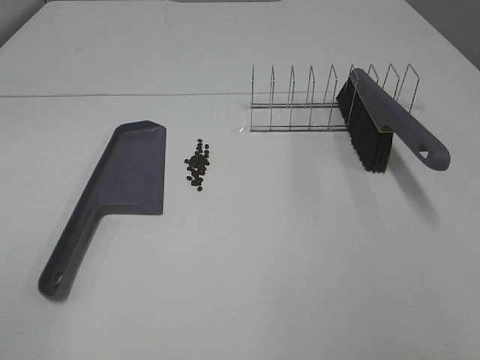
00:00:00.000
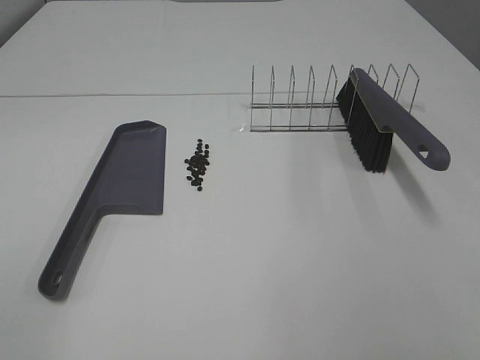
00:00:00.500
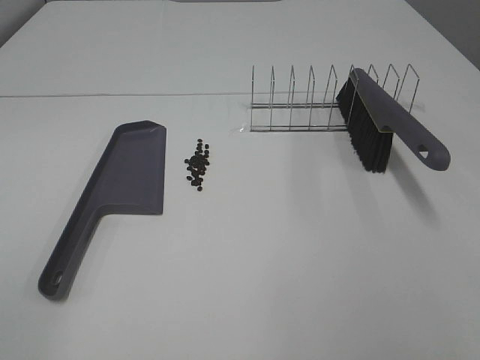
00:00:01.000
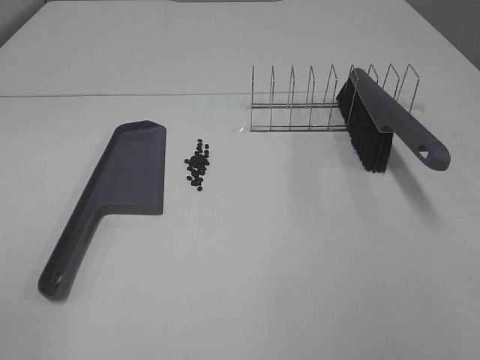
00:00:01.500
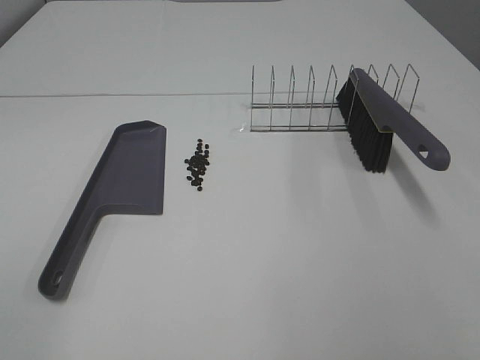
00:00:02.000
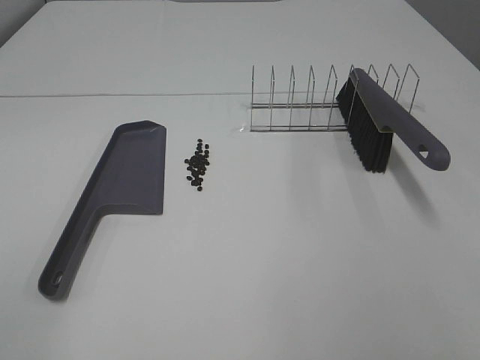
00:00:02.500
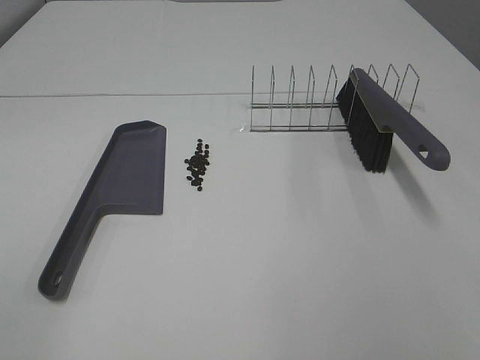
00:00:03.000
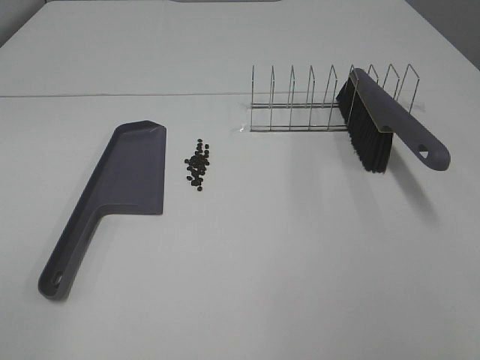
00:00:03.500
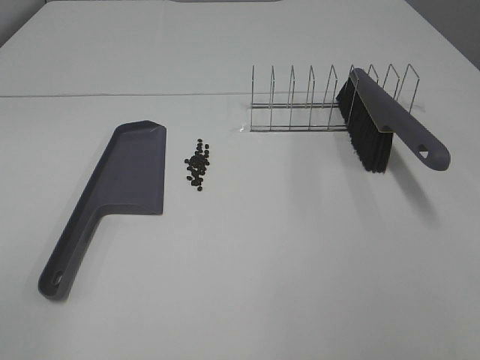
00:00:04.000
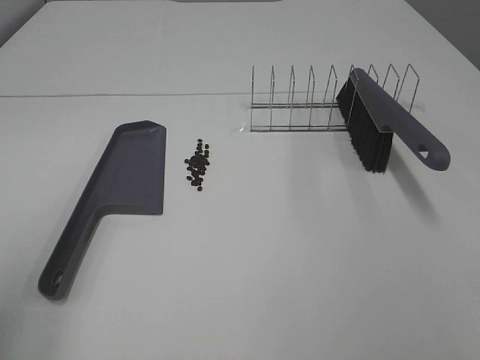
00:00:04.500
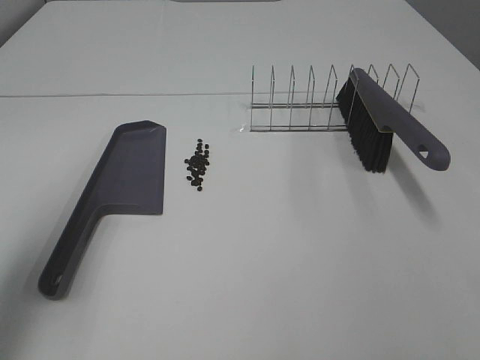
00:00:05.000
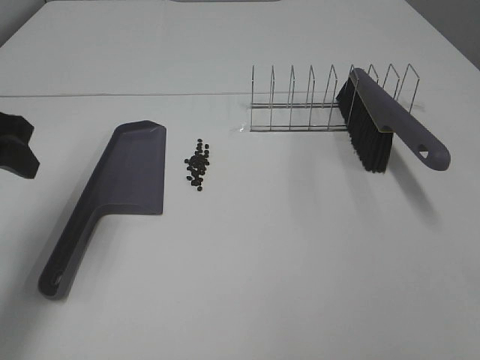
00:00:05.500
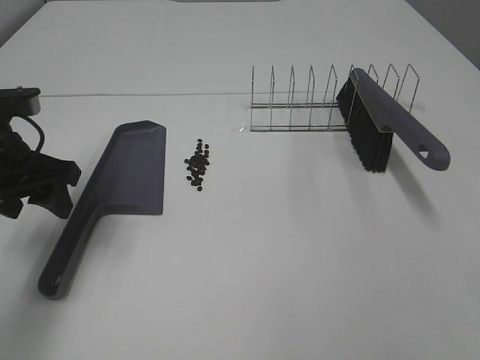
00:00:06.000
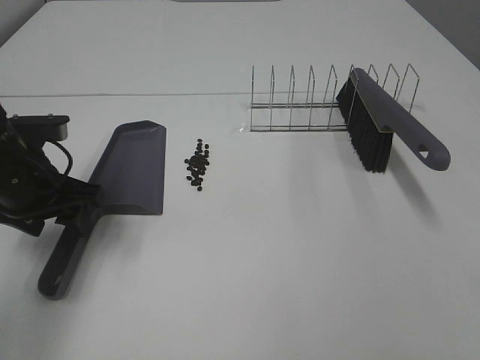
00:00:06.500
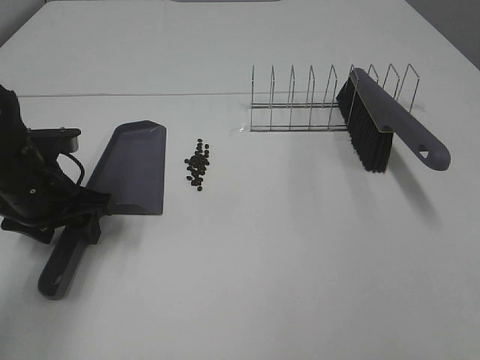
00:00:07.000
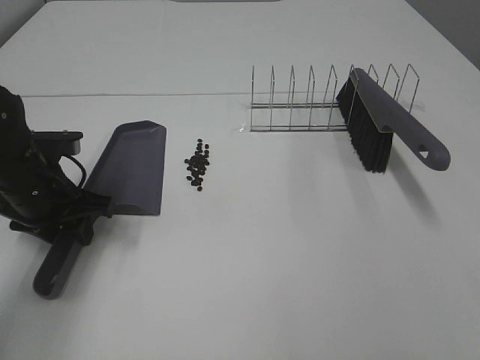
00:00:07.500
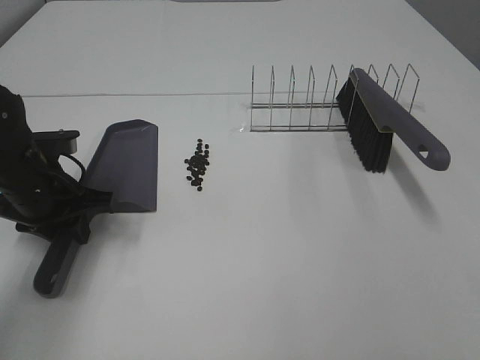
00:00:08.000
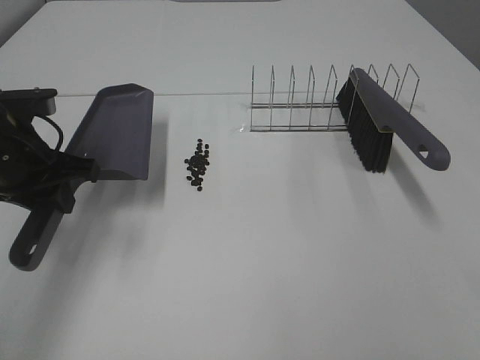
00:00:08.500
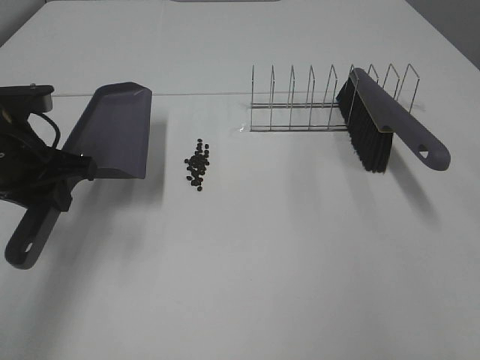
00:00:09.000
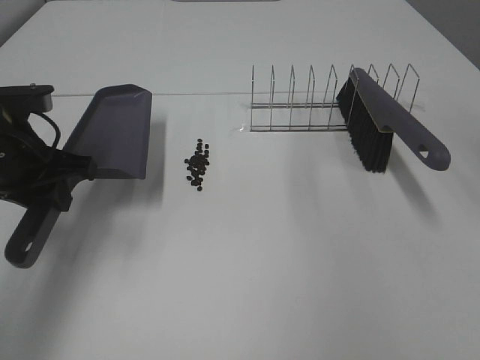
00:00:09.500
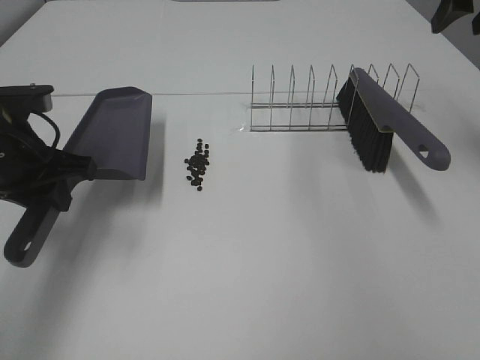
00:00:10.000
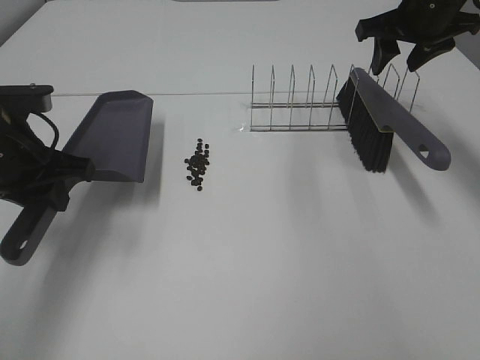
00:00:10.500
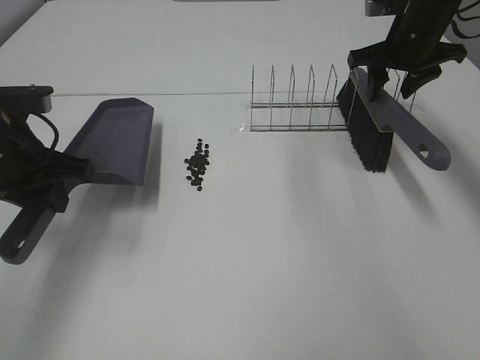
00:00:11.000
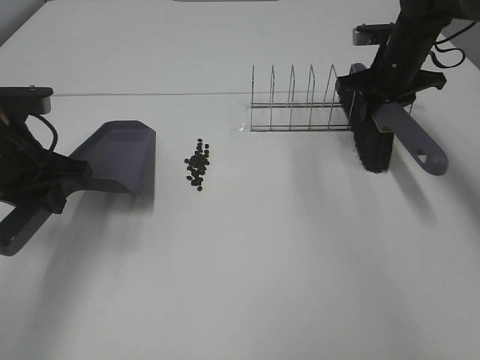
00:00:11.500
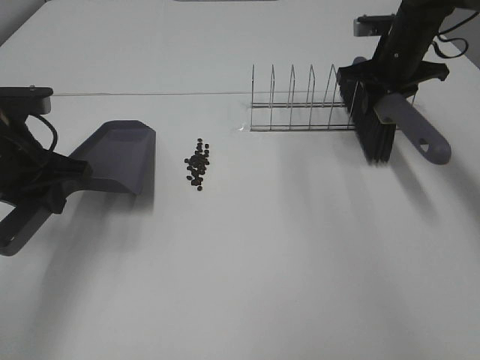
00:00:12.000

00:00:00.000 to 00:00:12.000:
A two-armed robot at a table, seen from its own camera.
Task of the whole recording: Sweep Coffee Bean.
Step, 00:00:00.000 to 00:00:07.500: Left hand: grab the dustpan.
Step, 00:00:09.000 to 00:00:11.500: Right hand:grab the broom.
00:00:00.000 to 00:00:04.000: Neither gripper changes place.
00:00:04.000 to 00:00:06.000: The left gripper travels forward by approximately 30 cm.
00:00:06.000 to 00:00:08.000: The left gripper goes about 5 cm downward, and closes.
00:00:08.000 to 00:00:10.000: The right gripper is displaced forward by roughly 40 cm, while the left gripper shifts about 5 cm upward.
00:00:10.000 to 00:00:12.000: The right gripper heads downward, forward and to the left, covering about 15 cm, and closes up.

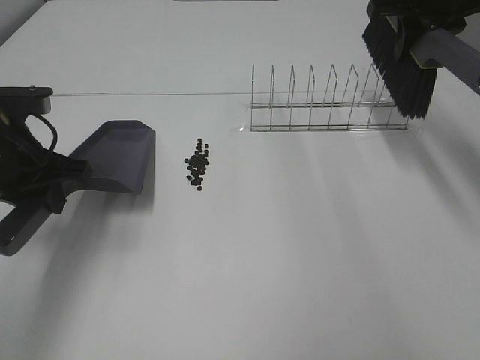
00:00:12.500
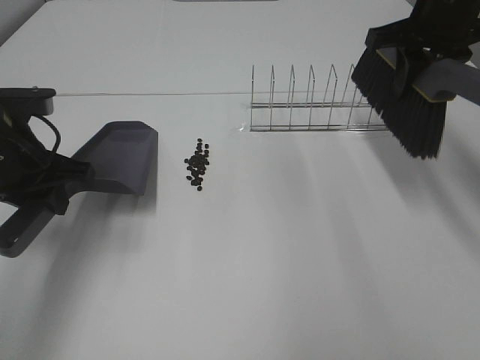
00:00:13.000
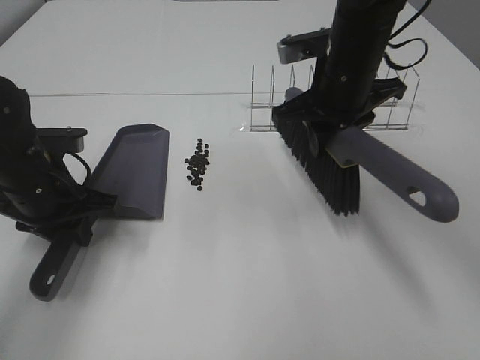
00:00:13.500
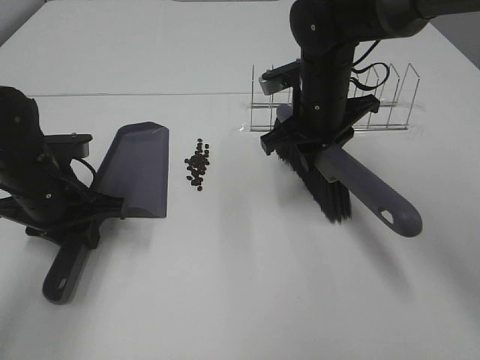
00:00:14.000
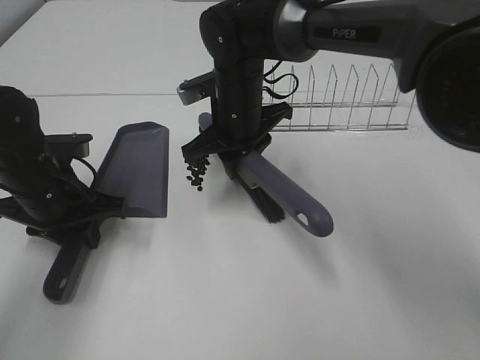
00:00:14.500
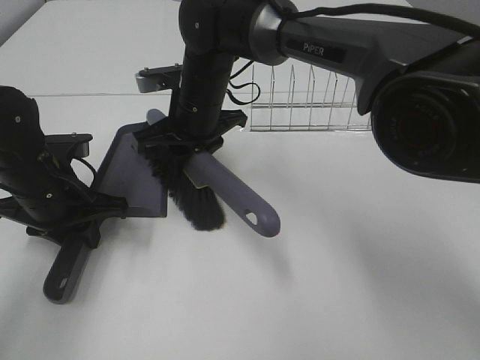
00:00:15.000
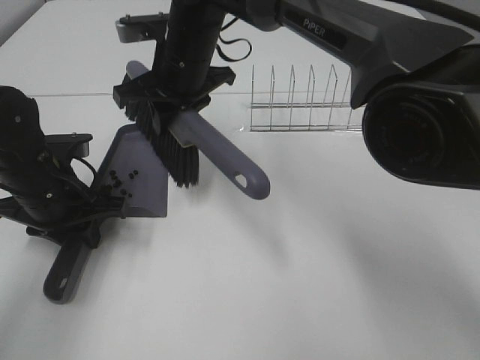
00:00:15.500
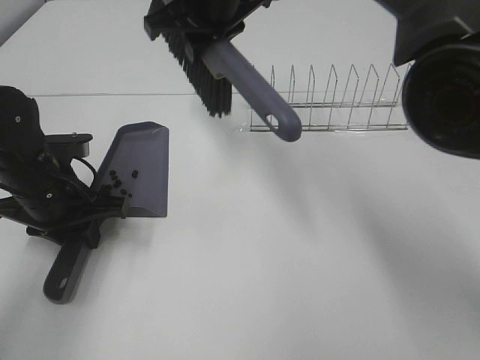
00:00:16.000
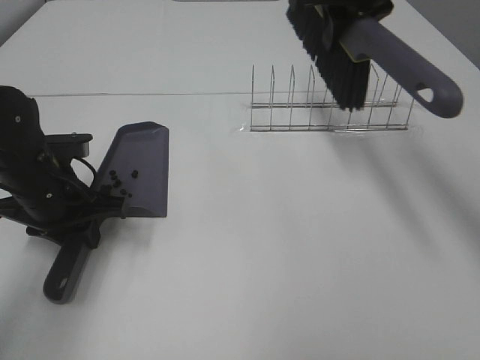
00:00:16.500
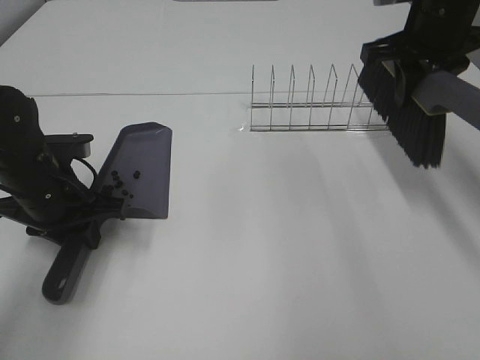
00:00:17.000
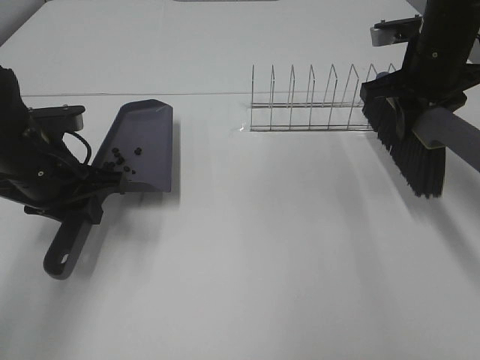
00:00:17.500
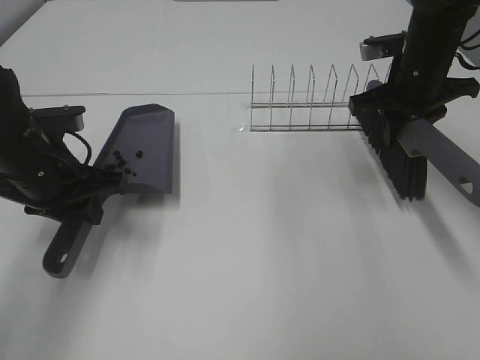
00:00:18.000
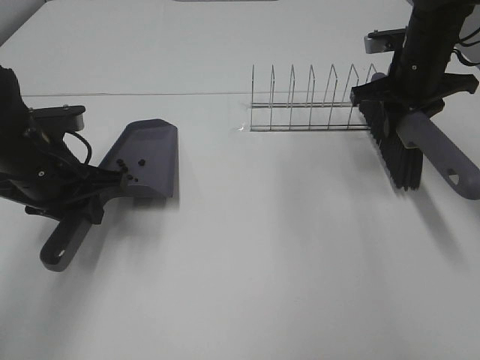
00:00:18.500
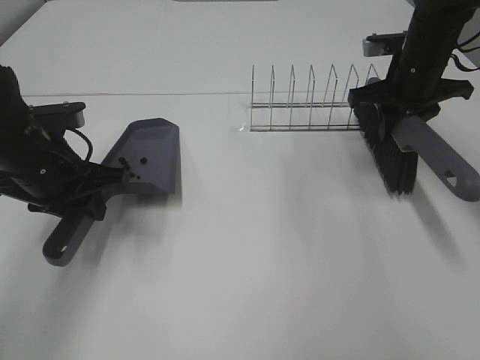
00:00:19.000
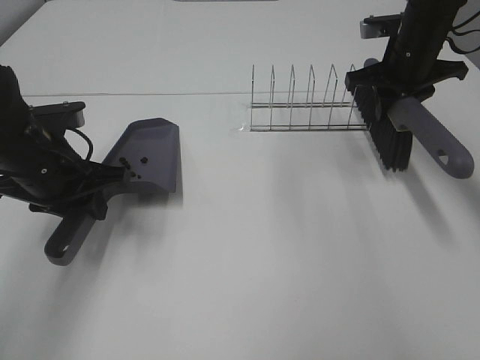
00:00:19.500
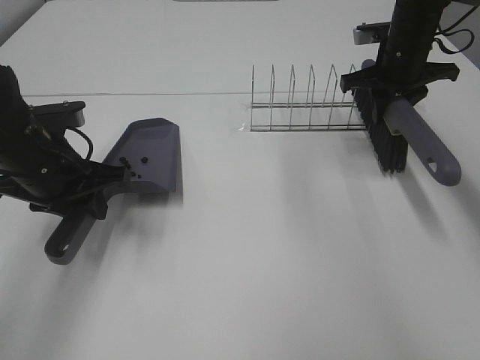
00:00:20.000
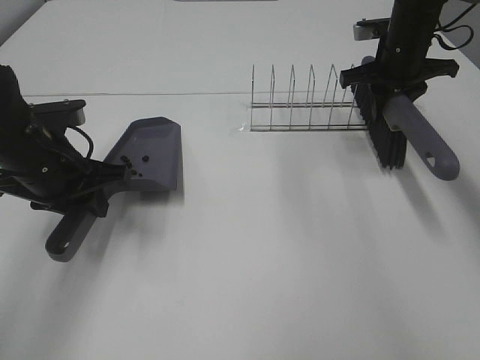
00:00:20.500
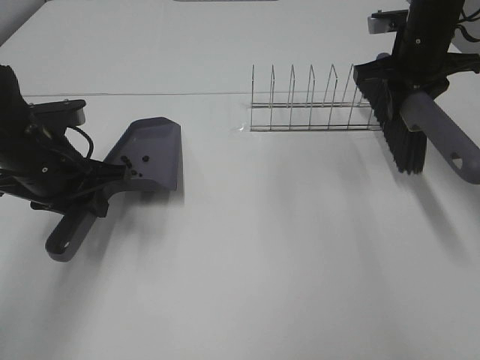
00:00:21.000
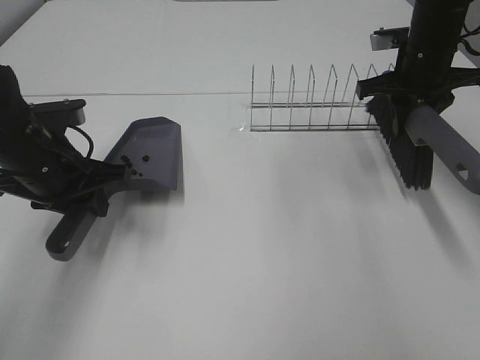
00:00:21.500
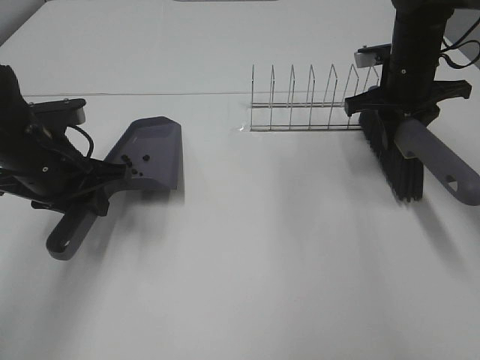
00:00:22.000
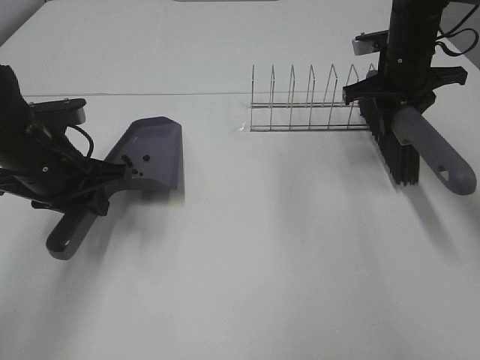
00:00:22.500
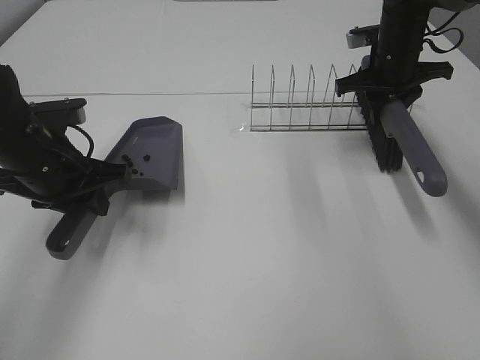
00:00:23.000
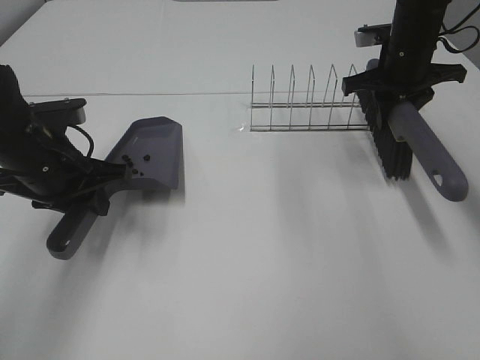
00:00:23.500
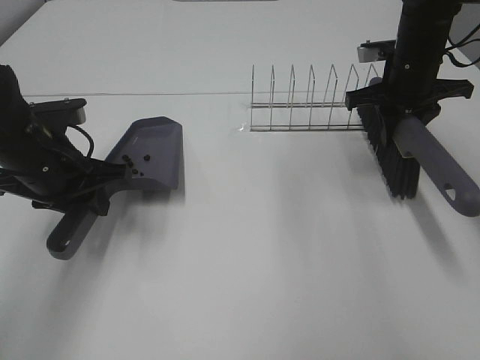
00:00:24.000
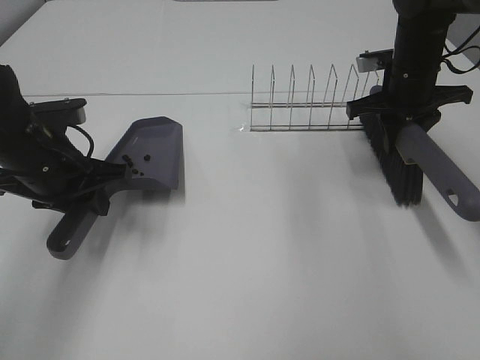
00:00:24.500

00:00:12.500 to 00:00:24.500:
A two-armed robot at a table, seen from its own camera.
Task of the whole recording: Sweep Coffee Bean.
Step, 00:00:12.500 to 00:00:15.500: Right hand:sweep the coffee beans into the dustpan.
00:00:12.500 to 00:00:14.500: The left gripper moves downward, about 5 cm; the right gripper moves to the left and downward, roughly 30 cm.
00:00:14.500 to 00:00:16.500: The right gripper moves upward and to the right, some 25 cm.
00:00:16.500 to 00:00:18.500: The right gripper moves downward and to the right, about 15 cm.
00:00:18.500 to 00:00:24.500: The grippers stay close to where they were, moving slightly.

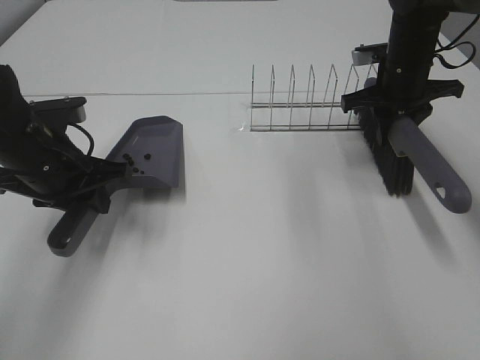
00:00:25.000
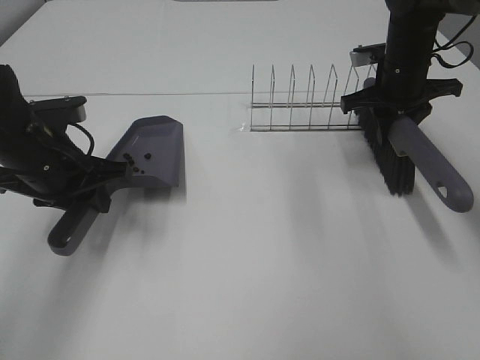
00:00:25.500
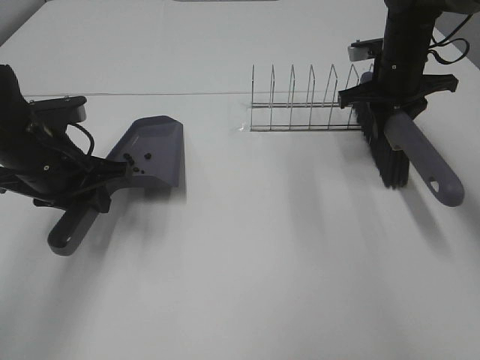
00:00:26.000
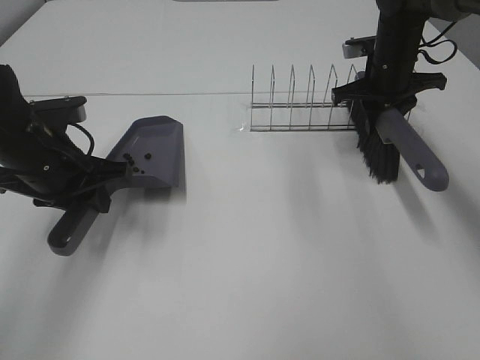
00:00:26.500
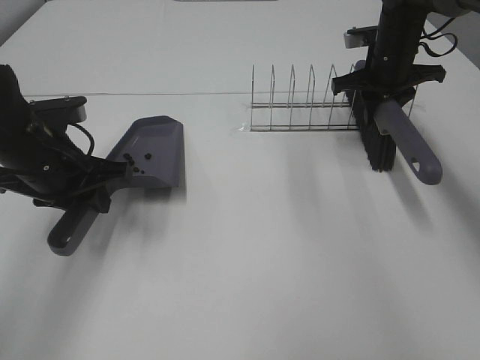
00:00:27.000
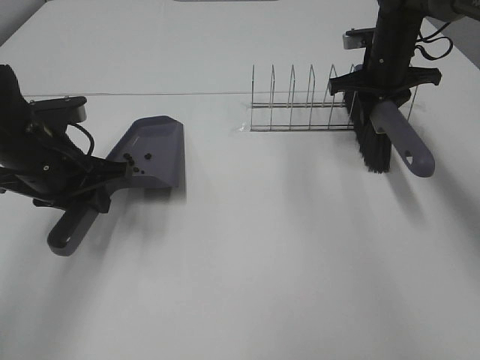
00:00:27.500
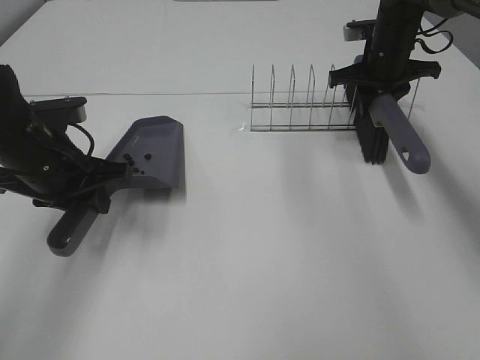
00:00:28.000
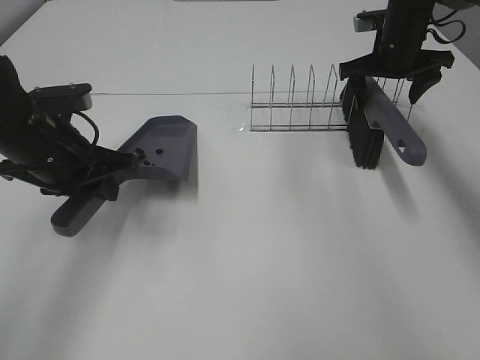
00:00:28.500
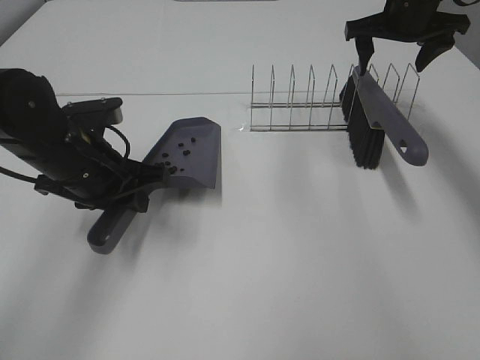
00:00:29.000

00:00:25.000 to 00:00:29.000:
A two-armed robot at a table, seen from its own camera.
Task of the whole recording: Sweep Coffee Bean.
Step, 00:00:25.000 to 00:00:28.500: Right hand:place the broom on the rack.
00:00:25.000 to 00:00:27.000: The grippers make only small movements.
00:00:27.000 to 00:00:29.000: The right gripper travels upward by some 10 cm, and opens.
